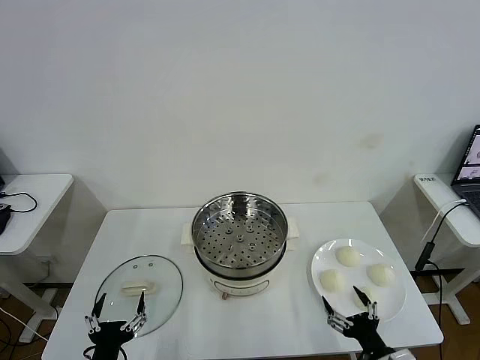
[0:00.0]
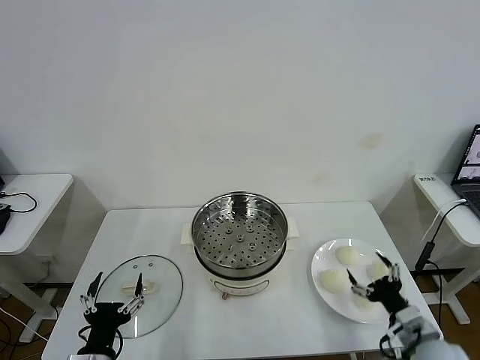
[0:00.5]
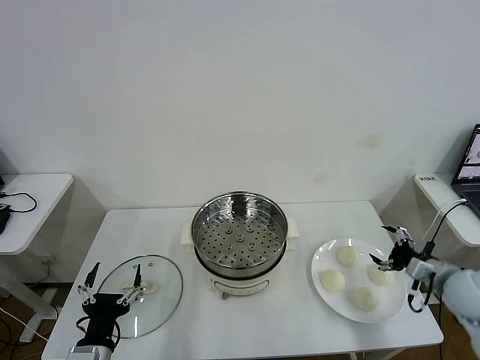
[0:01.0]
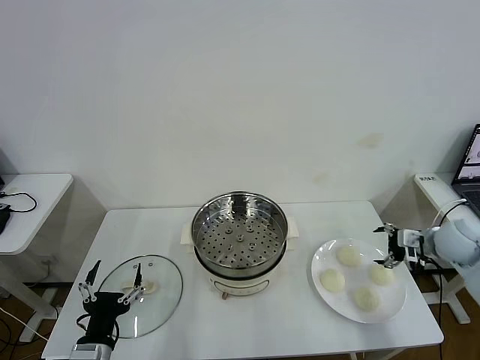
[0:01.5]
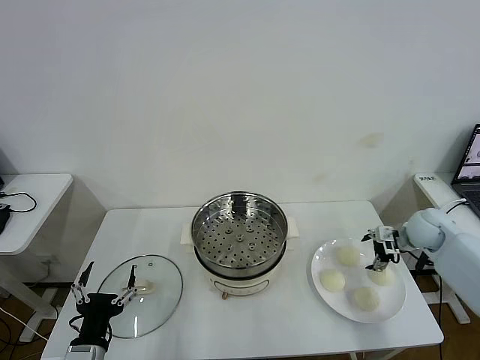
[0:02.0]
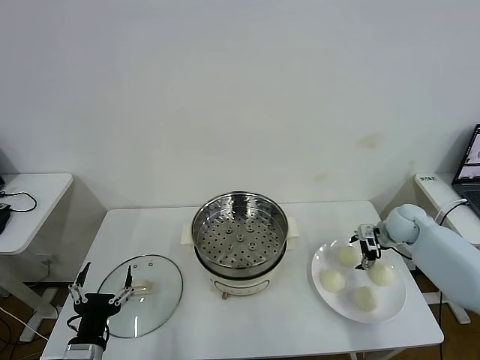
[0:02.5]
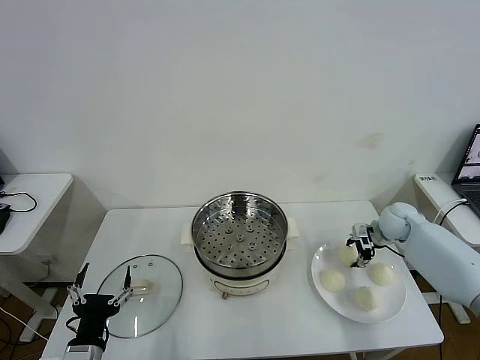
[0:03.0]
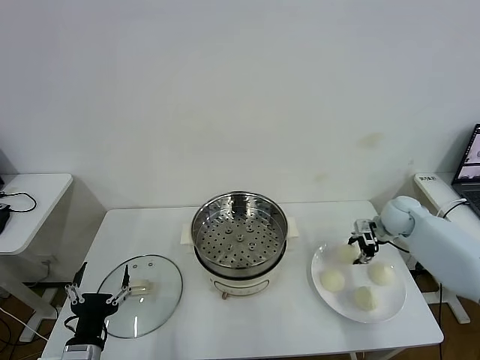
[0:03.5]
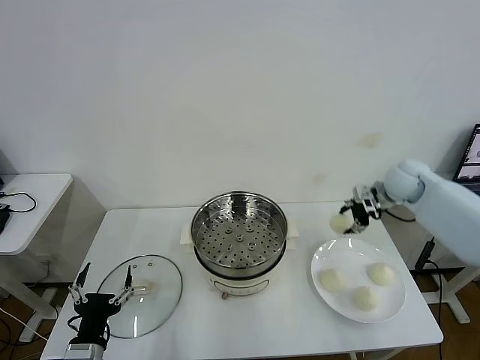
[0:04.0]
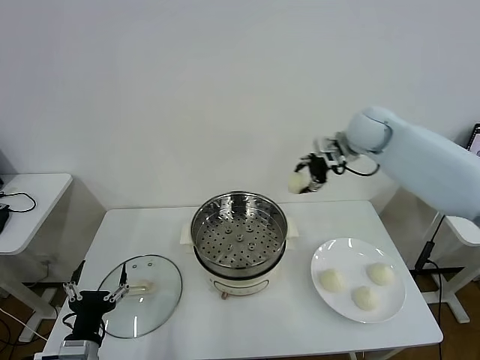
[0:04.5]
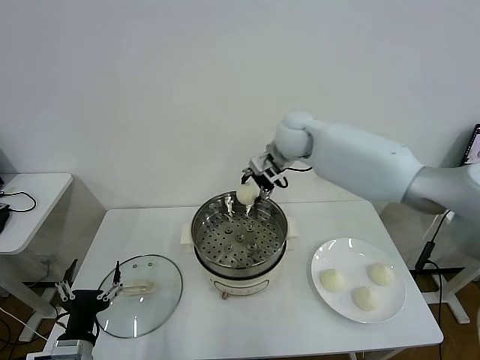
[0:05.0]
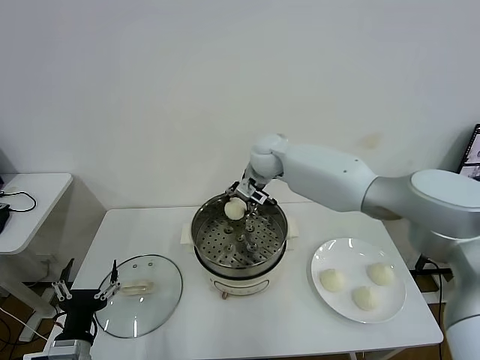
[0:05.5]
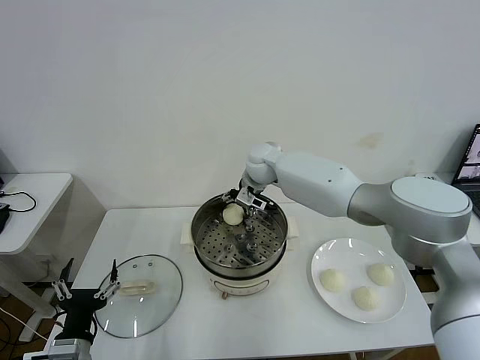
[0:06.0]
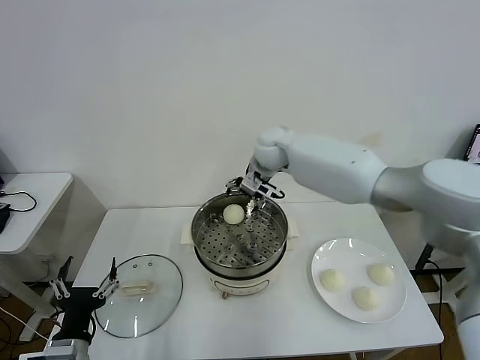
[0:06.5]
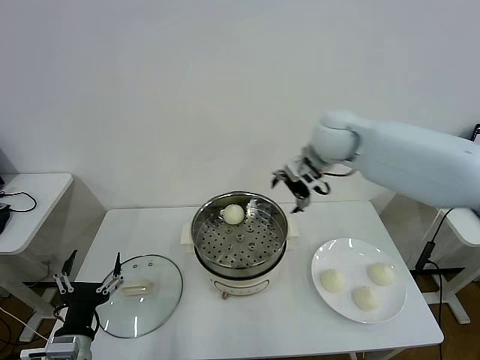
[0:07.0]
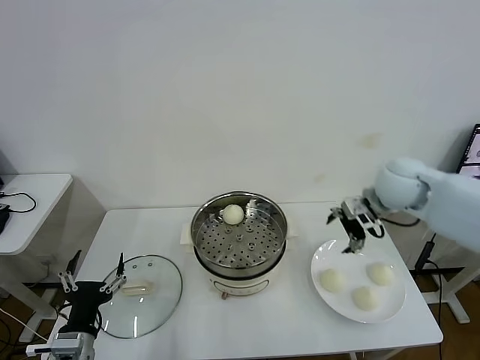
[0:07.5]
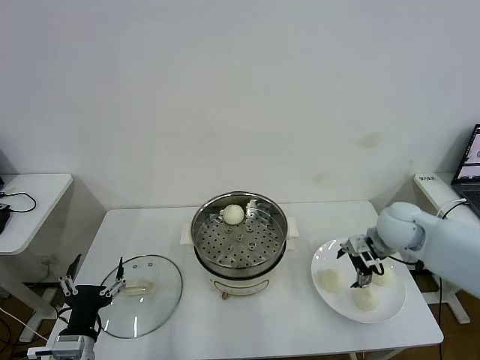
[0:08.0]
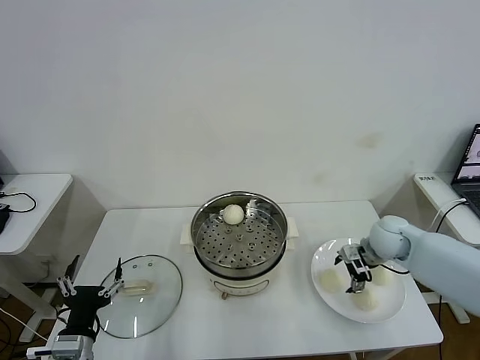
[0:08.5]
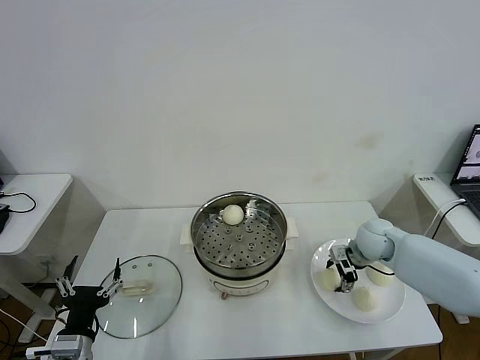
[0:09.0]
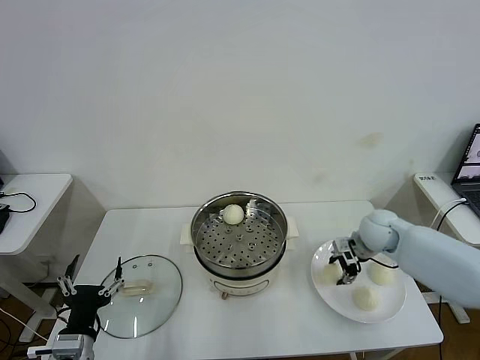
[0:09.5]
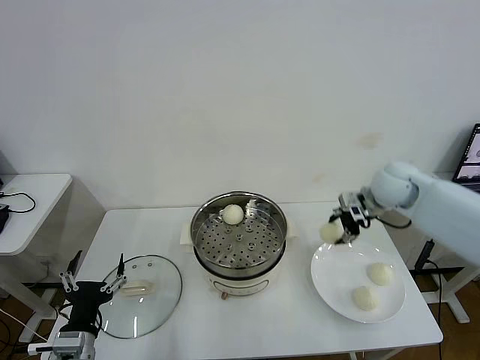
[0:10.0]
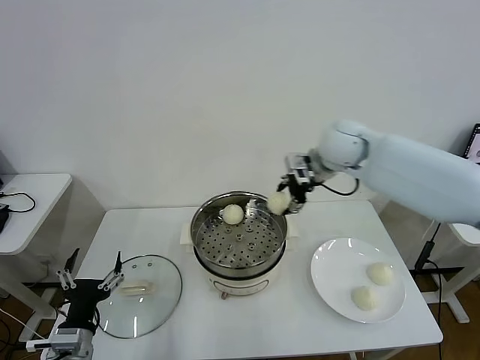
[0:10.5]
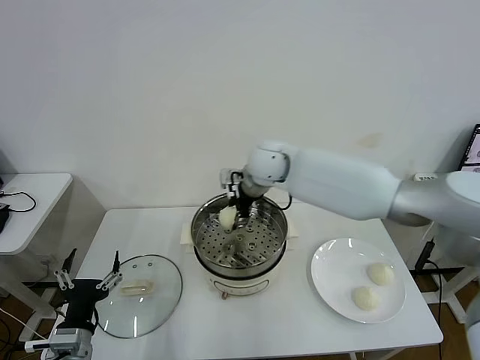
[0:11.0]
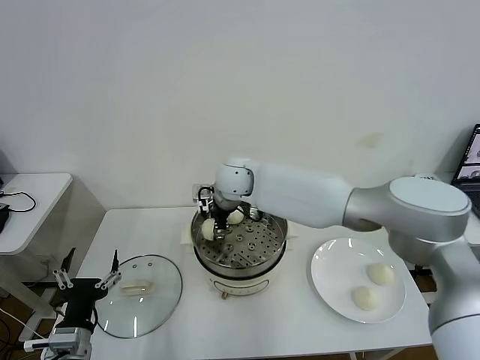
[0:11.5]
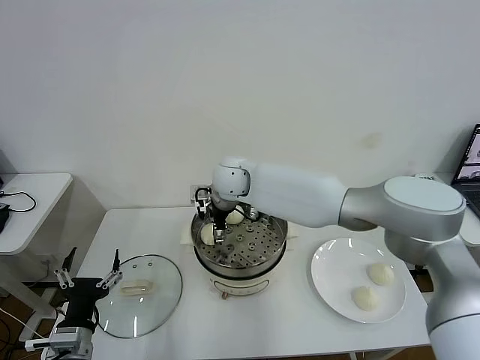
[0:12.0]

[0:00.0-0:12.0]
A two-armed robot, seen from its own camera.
Task of the whole recording: take steamed baozi put them in steamer then cover it.
Step, 0:00.0 to 0:03.0: Grasp the baozi in the plate with right gripper.
Step, 0:03.5 to 0:06.0: Place the baozi on the steamer with right gripper.
Step, 0:06.5 to 0:09.0: Grasp the baozi in the plate with right gripper.
0:02.0 to 0:04.0: The right gripper heads upward, to the left and forward, covering approximately 15 cm, and closes.
0:04.0 to 0:06.0: The right gripper shifts some 35 cm to the left.
0:06.0 to 0:08.0: The right gripper moves to the right and backward, approximately 35 cm, and opens up.
0:08.0 to 0:10.0: The right gripper heads upward and forward, covering roughly 10 cm, and closes up.
0:10.0 to 0:12.0: The right gripper travels to the left by approximately 35 cm, and opens up.

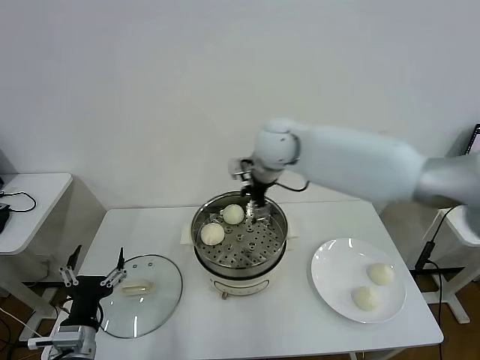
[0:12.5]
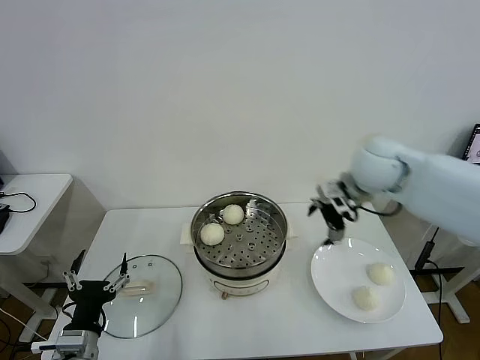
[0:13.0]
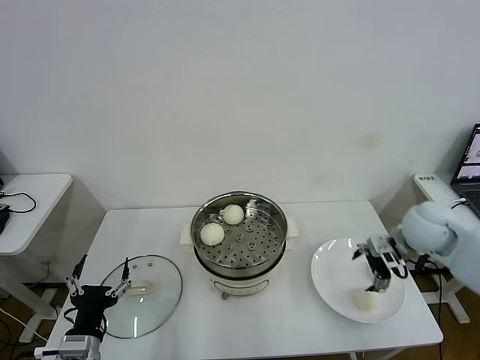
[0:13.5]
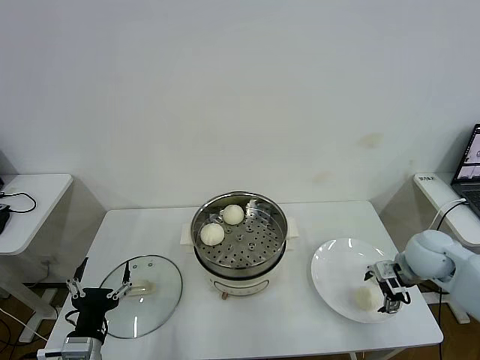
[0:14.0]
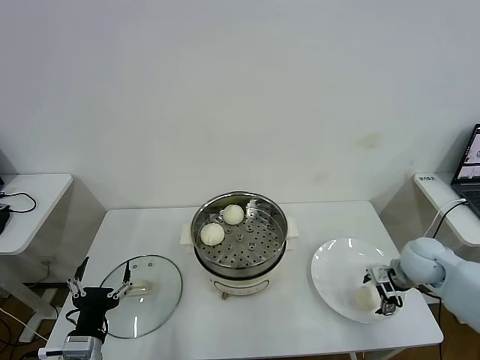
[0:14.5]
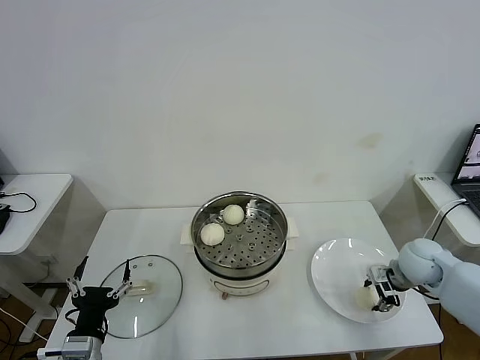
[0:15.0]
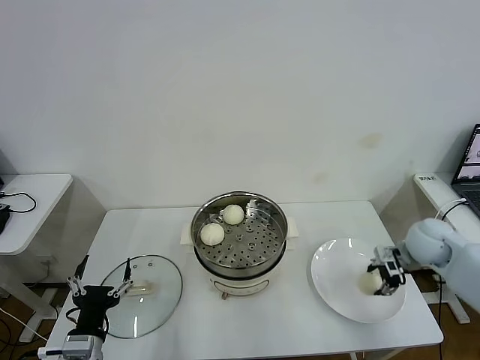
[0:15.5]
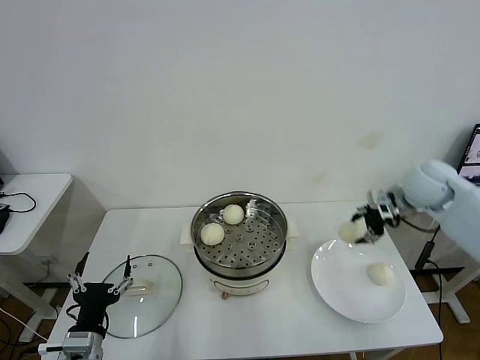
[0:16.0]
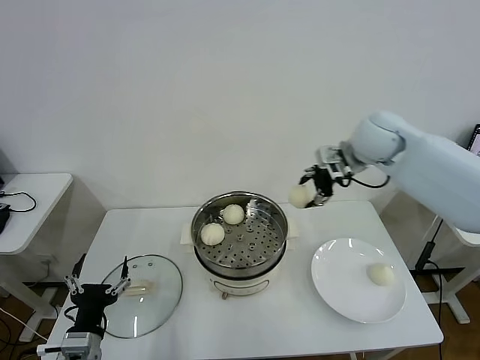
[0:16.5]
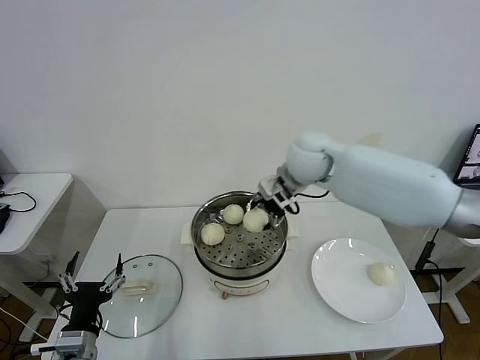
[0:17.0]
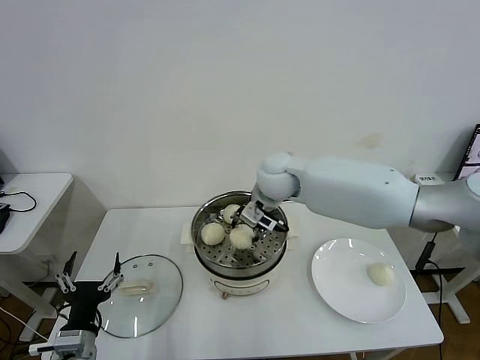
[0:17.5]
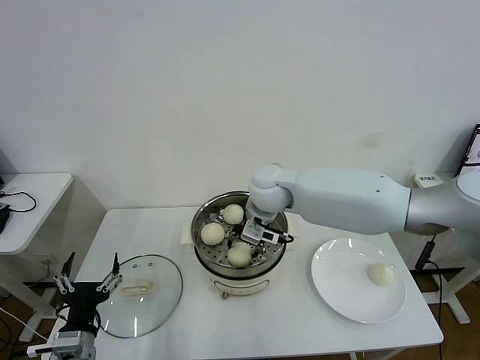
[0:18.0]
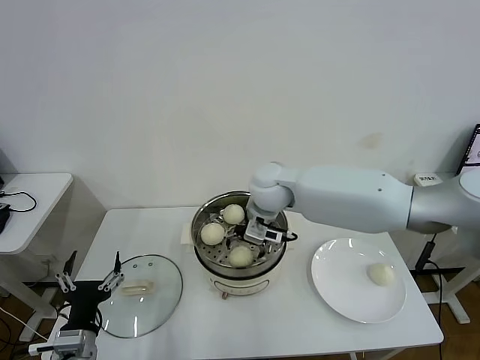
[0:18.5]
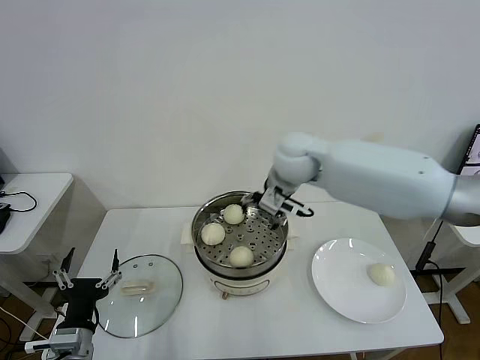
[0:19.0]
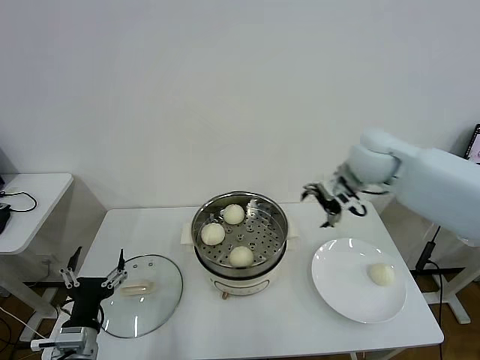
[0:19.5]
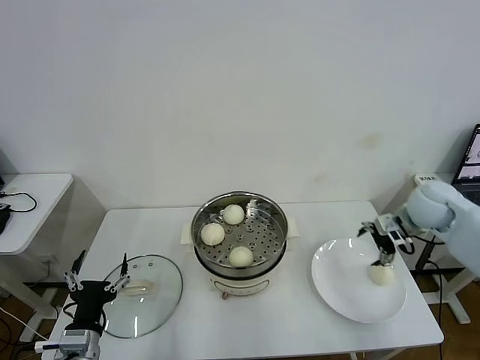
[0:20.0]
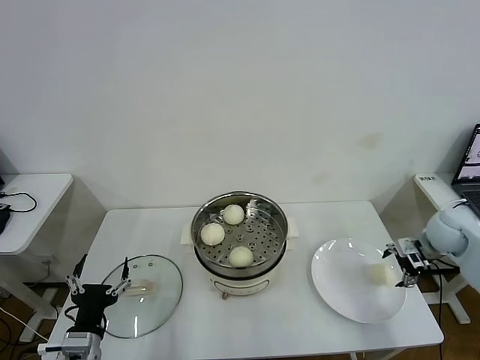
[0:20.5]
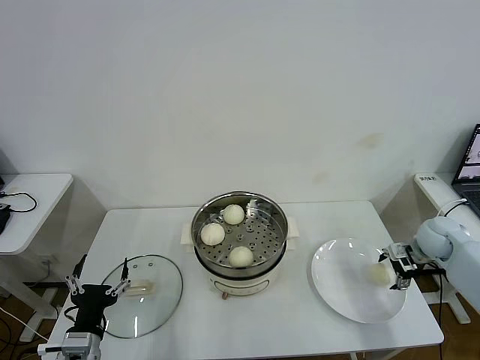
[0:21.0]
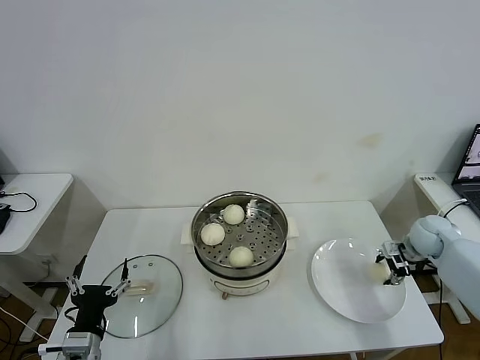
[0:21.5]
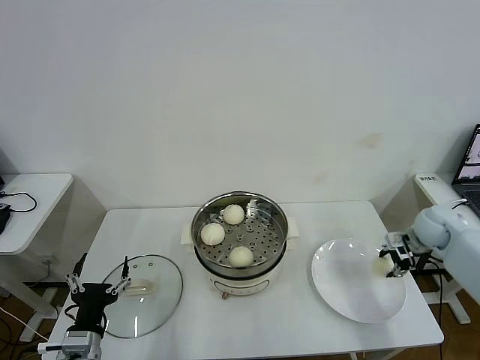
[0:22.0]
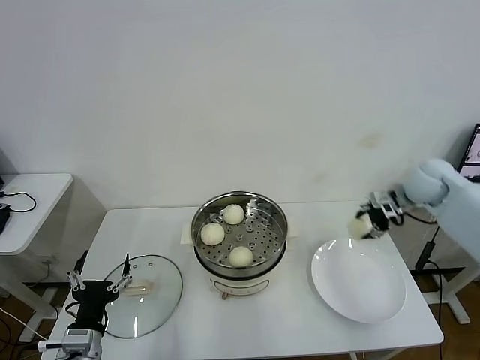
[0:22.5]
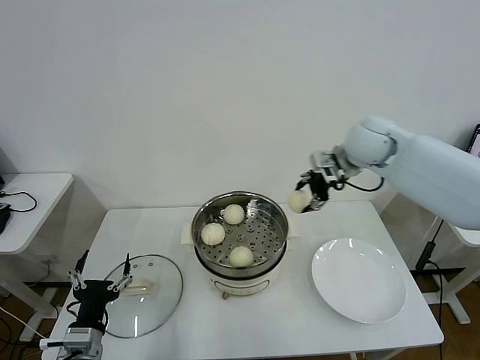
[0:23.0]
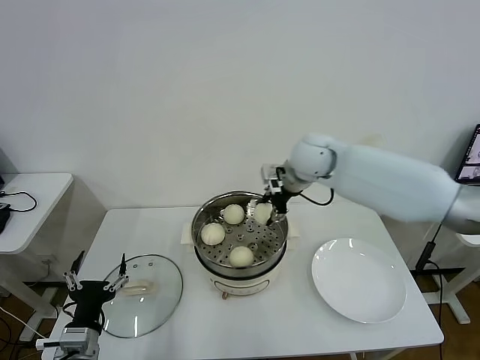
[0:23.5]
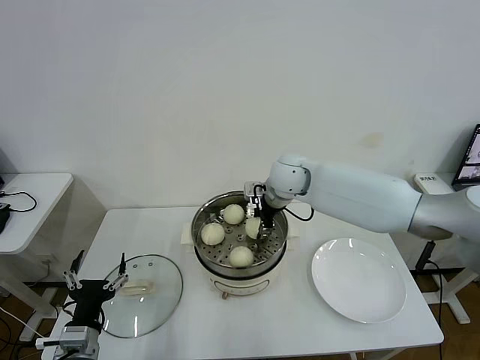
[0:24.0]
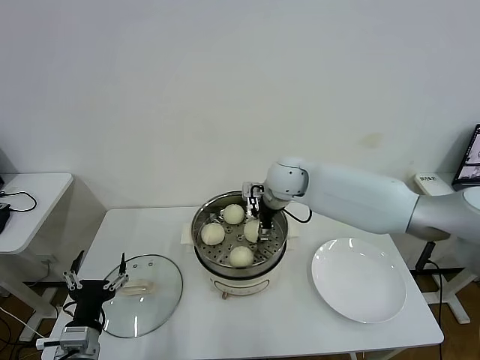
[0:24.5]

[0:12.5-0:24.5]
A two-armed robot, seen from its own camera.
Task of the whole recording: take steamed baozi put them in steamer then cover it.
Step, 0:12.5 to 0:15.0: Grasp the baozi in the plate with right gripper.
Step, 0:15.5 to 0:18.5: Place the baozi on the steamer with right gripper.
Step, 0:19.0 to 0:21.5: Grasp the baozi in the plate with right gripper.
0:12.5 to 0:14.5: The right gripper shifts some 40 cm to the right, downward and backward.
0:14.5 to 0:16.5: The right gripper heads upward, to the left and forward, covering about 30 cm, and closes its fingers.
0:16.5 to 0:18.5: The right gripper goes roughly 25 cm to the left and downward, and opens its fingers.
0:18.5 to 0:20.5: The right gripper goes some 40 cm to the right.
0:20.5 to 0:22.5: The right gripper shifts roughly 10 cm upward, to the left and forward, and closes.
0:22.5 to 0:24.5: The right gripper is displaced to the left by roughly 30 cm, and opens up.

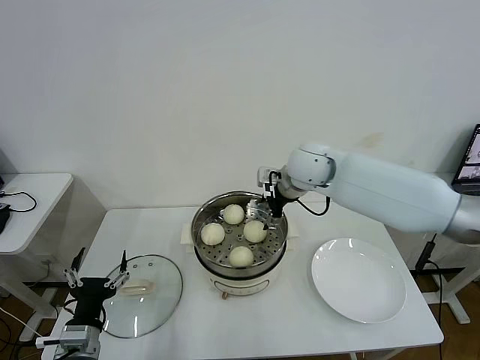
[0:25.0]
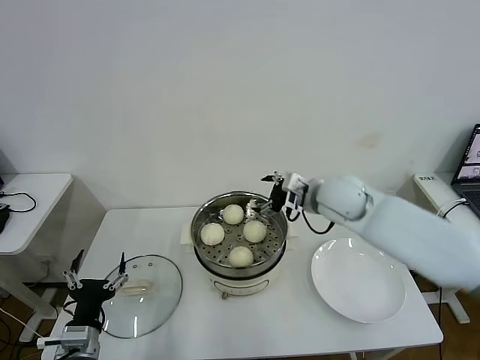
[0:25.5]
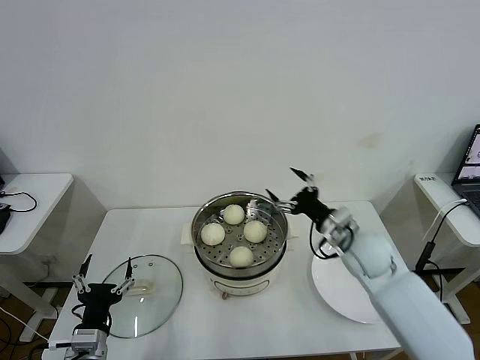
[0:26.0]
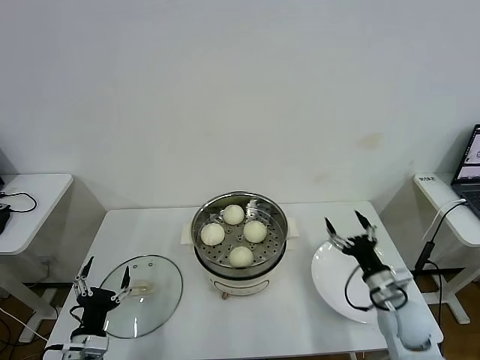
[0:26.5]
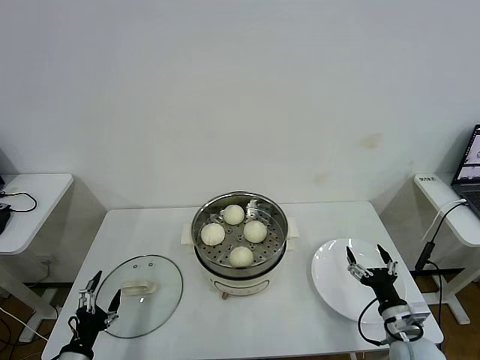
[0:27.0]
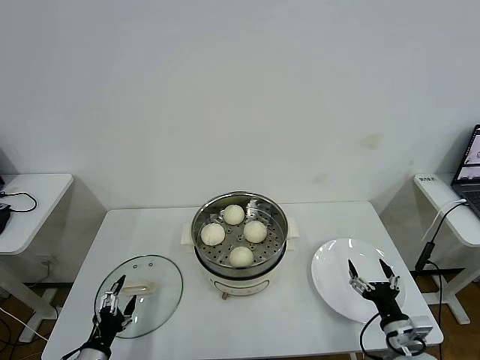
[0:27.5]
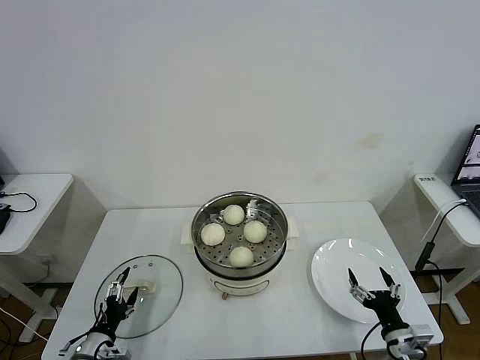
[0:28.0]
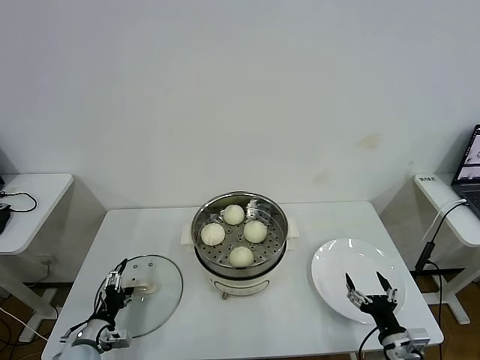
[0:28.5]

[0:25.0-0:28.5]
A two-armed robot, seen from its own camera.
Task of the whole recording: take steamed baozi put them in steamer then cover it.
0:25.0 to 0:27.0: The left gripper is displaced downward and to the left by roughly 10 cm. Meanwhile the right gripper is displaced backward, downward and to the right by about 50 cm.
0:27.0 to 0:28.5: The right gripper shifts some 5 cm backward, while the left gripper goes some 10 cm forward and downward.
